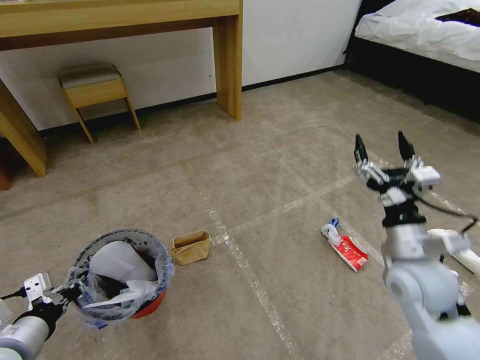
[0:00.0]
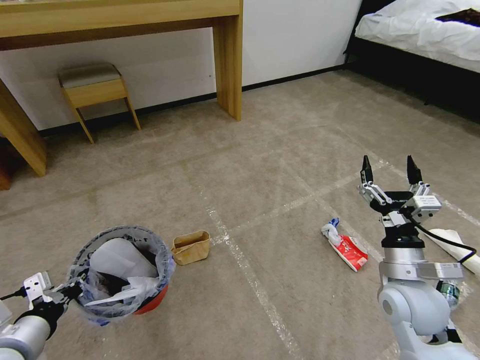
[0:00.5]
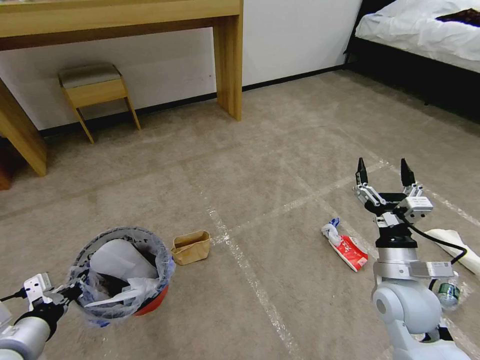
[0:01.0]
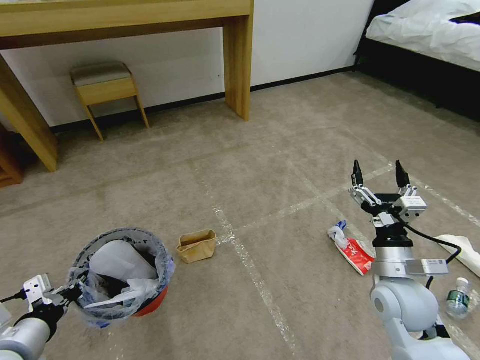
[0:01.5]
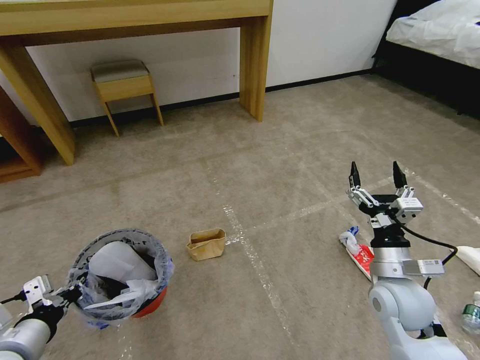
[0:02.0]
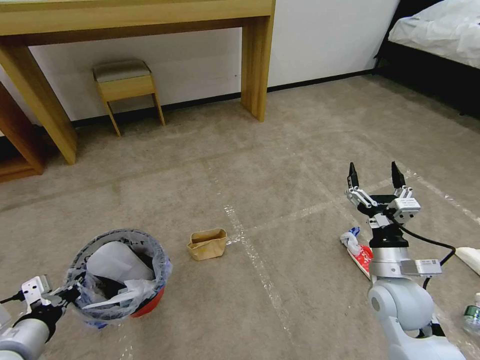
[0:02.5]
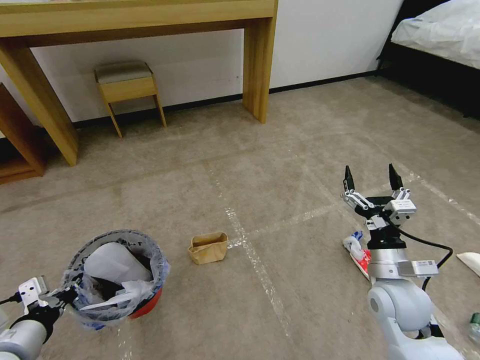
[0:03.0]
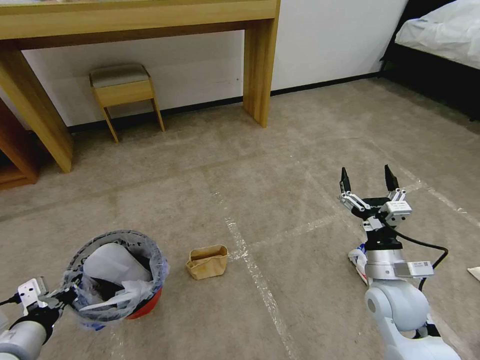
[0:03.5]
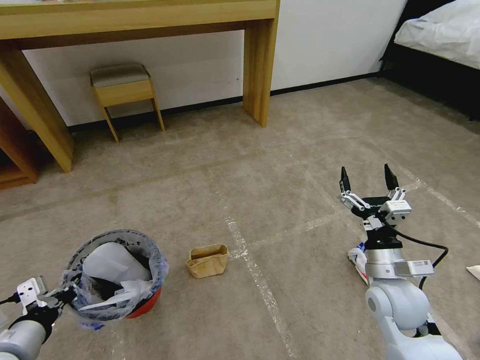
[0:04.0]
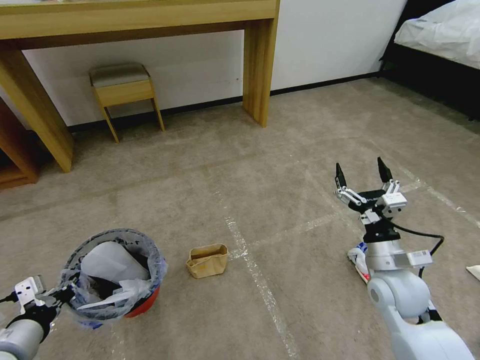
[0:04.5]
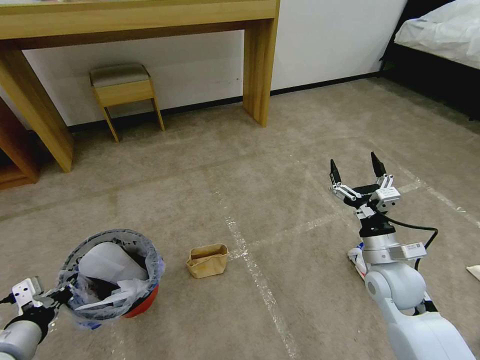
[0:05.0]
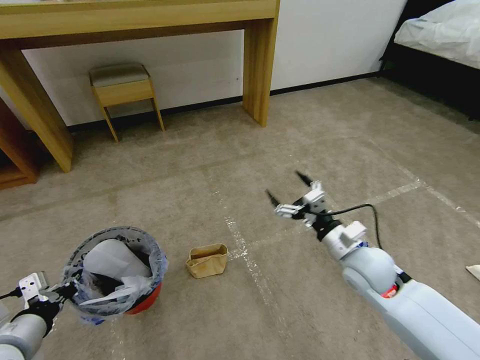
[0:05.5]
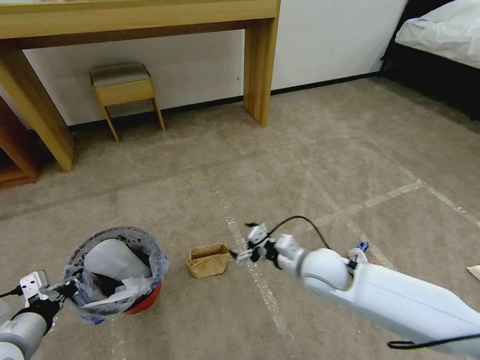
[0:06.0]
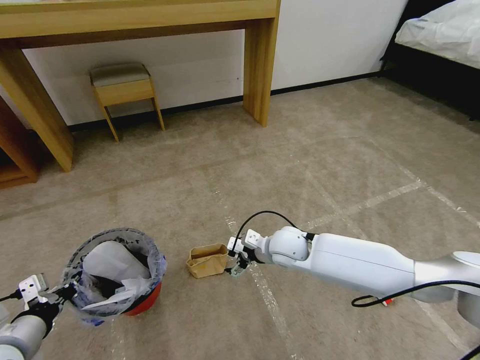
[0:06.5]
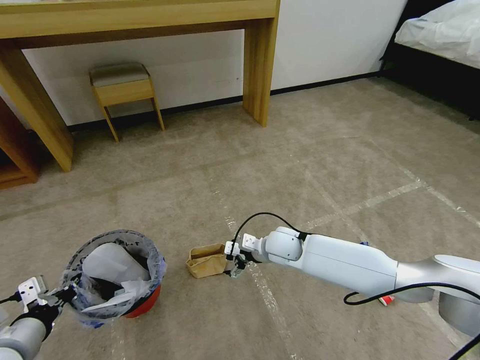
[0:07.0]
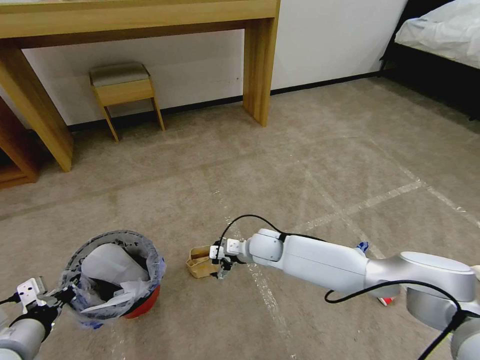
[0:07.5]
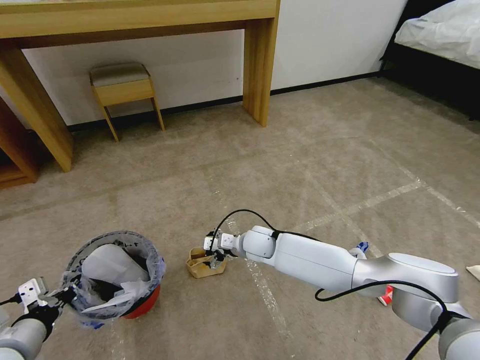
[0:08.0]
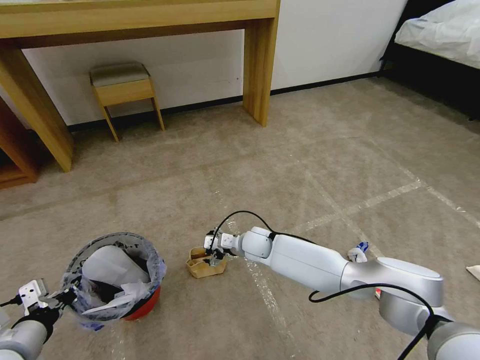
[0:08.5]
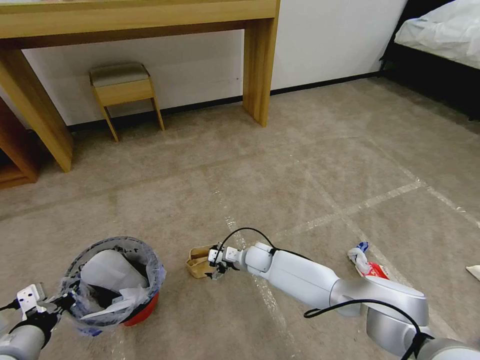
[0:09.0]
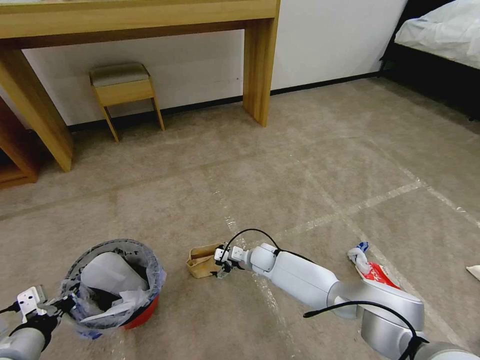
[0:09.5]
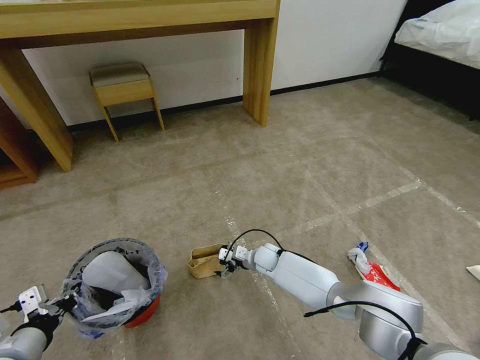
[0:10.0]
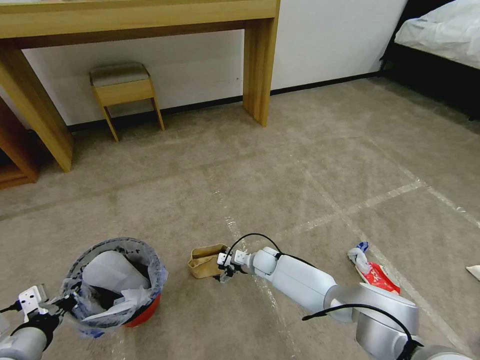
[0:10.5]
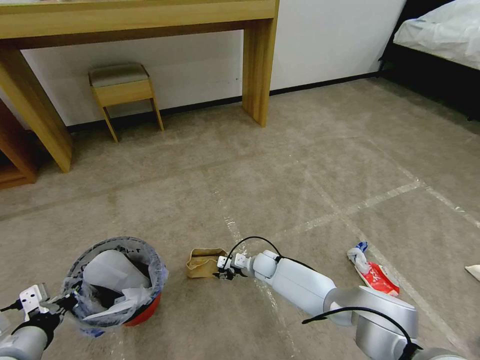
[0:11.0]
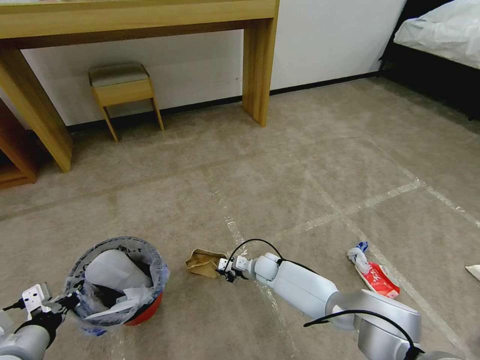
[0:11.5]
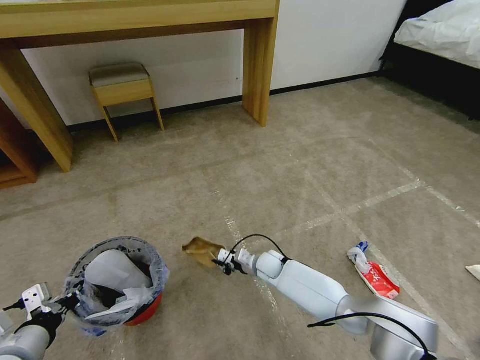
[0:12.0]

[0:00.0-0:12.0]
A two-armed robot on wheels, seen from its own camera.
Task of the whole recording: Pick up the trash bin and place the garbage on the floor into it.
0:00.0 to 0:02.0: The right gripper is displaced downward by about 5 cm.
0:02.0 to 0:04.0: Both grippers stay put.
0:04.0 to 0:06.0: The right gripper moves to the left and forward, approximately 10 cm.
0:06.0 to 0:08.0: The right gripper heads to the left, forward and downward, covering some 20 cm.
0:08.0 to 0:10.0: The right gripper travels downward by approximately 10 cm.
0:10.0 to 0:12.0: The right gripper closes its fingers.

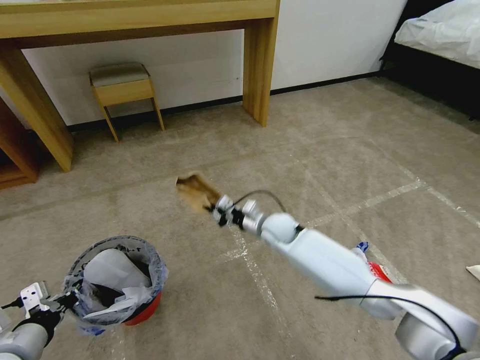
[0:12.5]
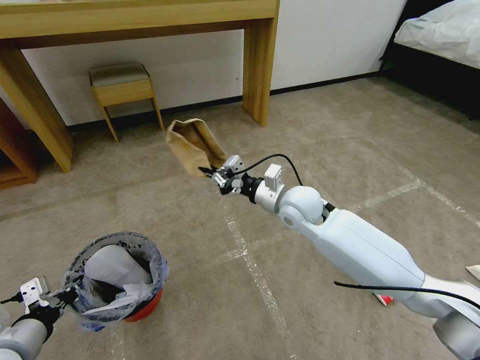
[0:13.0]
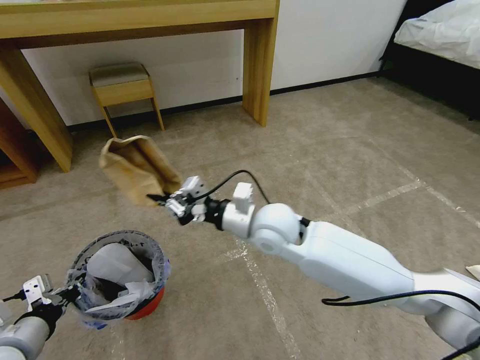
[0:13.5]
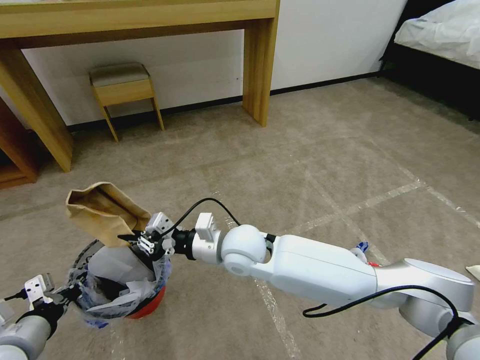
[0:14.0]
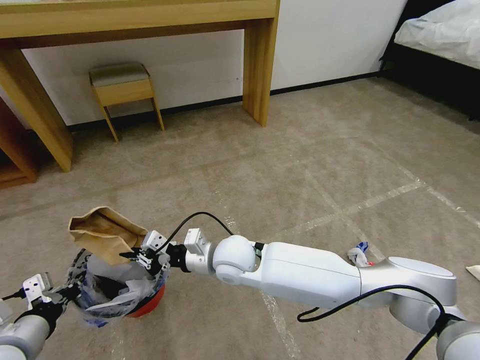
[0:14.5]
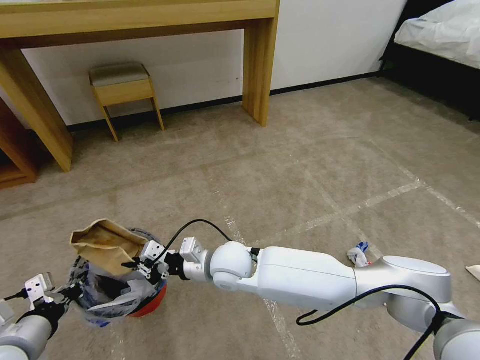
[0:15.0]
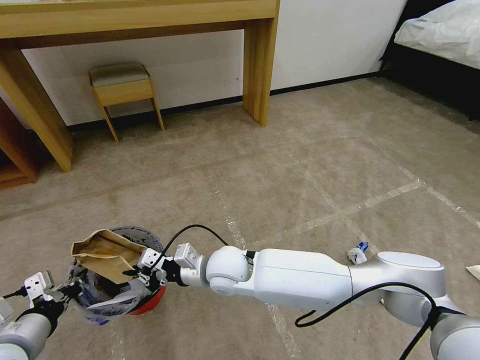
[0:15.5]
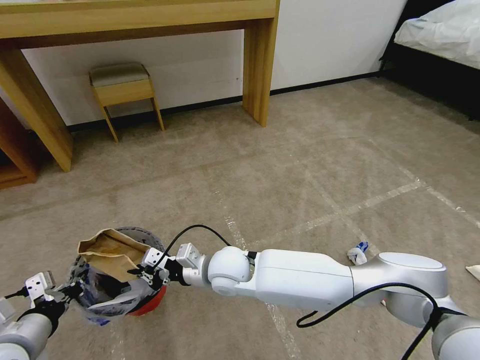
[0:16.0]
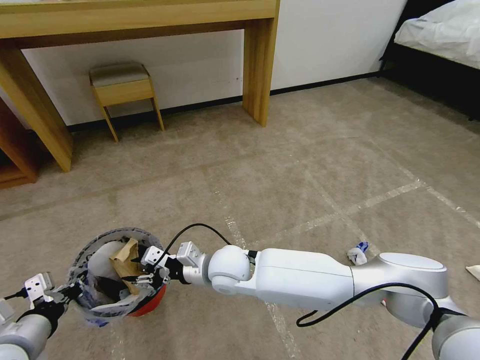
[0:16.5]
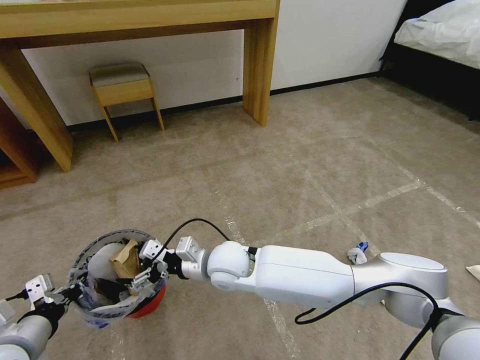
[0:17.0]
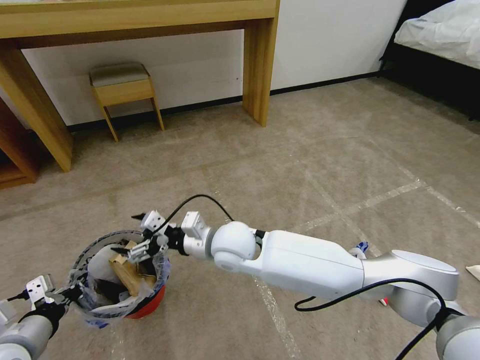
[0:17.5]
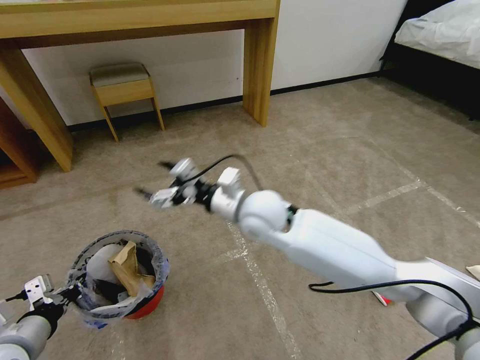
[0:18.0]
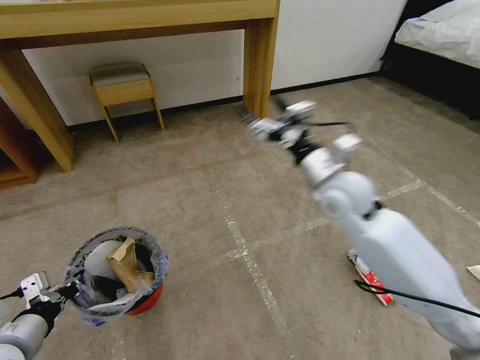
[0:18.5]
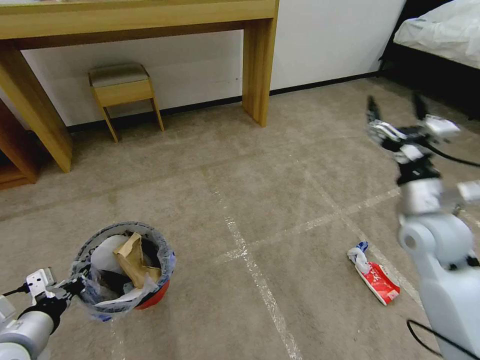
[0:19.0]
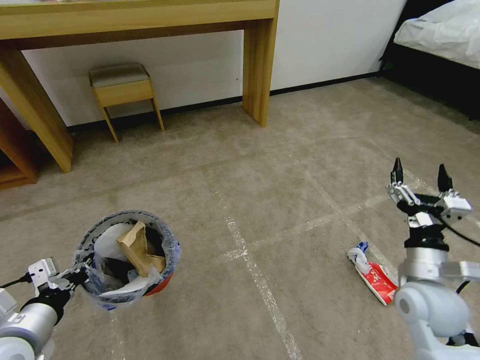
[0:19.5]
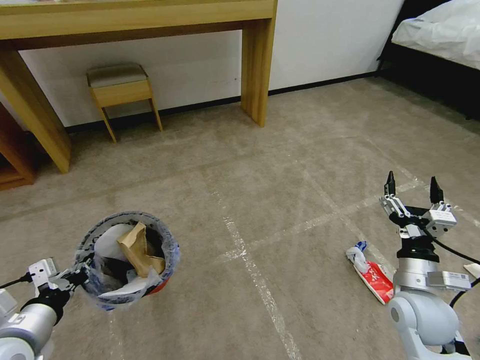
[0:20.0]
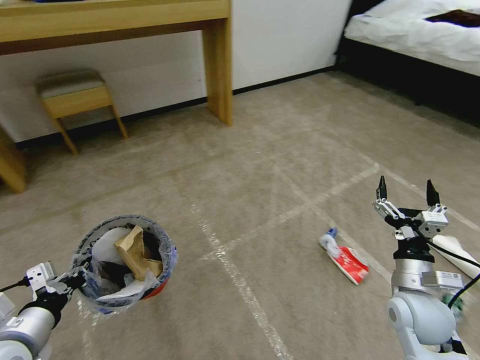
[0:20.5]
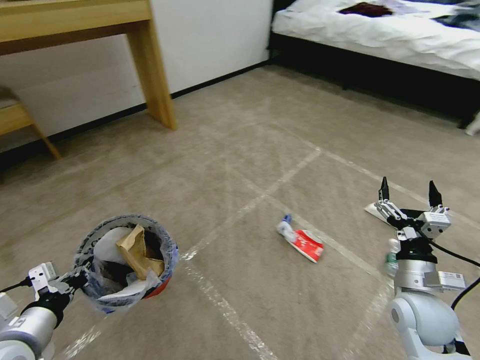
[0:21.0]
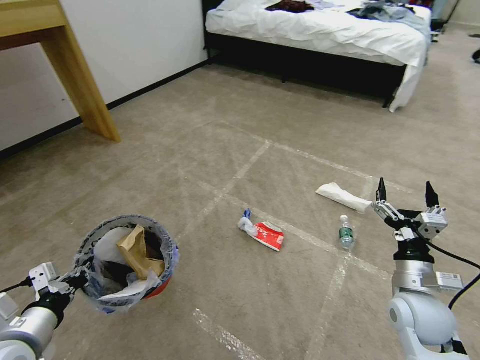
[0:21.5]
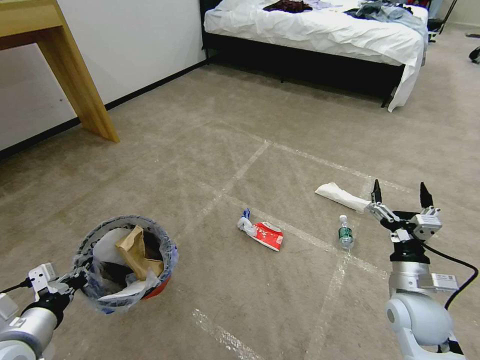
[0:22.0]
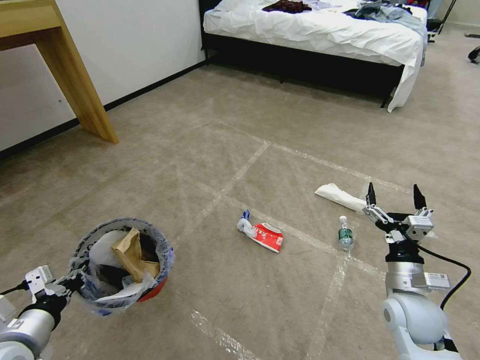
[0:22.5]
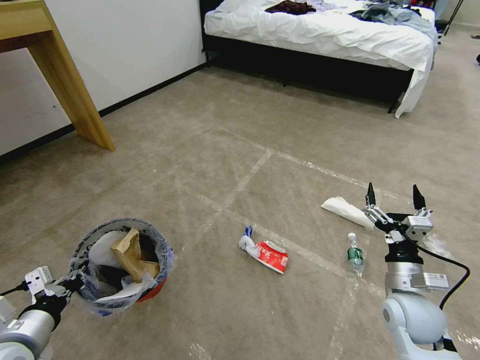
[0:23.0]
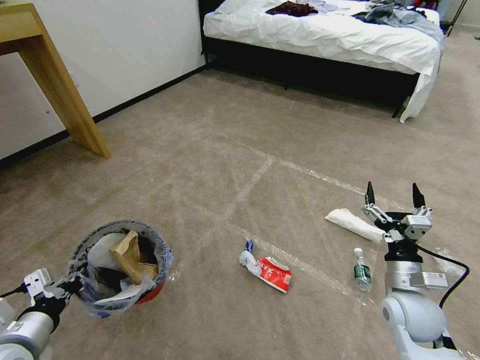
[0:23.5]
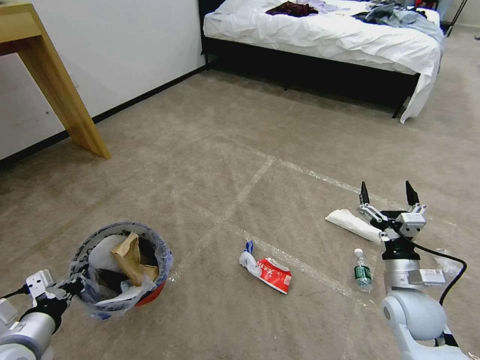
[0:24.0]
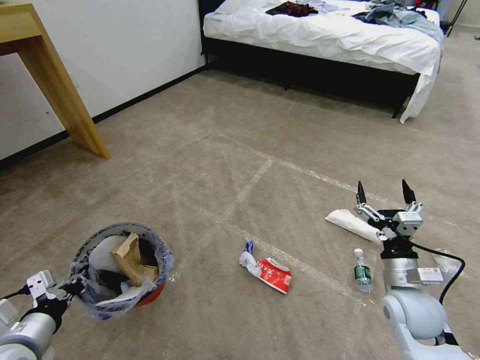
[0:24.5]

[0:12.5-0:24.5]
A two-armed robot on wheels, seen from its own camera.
Task of the whole recording: Pick up the trash bin and place the garbage on the floor into it.
0:12.5 to 0:14.5: The right gripper heads to the left and backward, covering approximately 20 cm.
0:14.5 to 0:16.5: The right gripper opens up.
0:16.5 to 0:18.5: The right gripper goes about 30 cm to the right and upward, and opens up.
0:18.5 to 0:20.5: The right gripper is displaced backward, downward and to the right by some 25 cm.

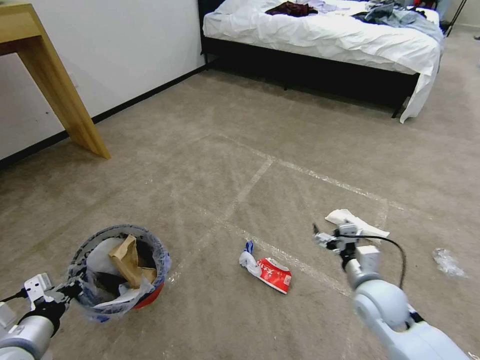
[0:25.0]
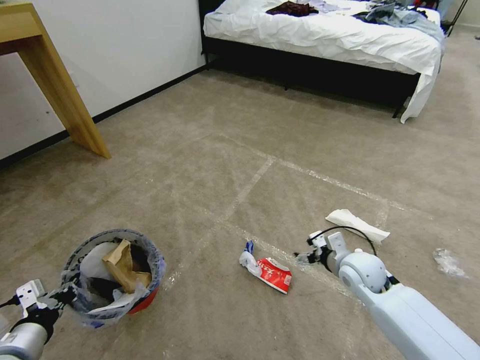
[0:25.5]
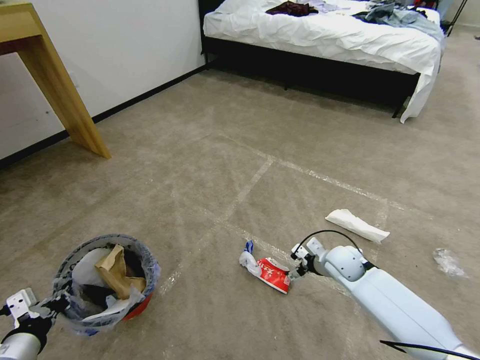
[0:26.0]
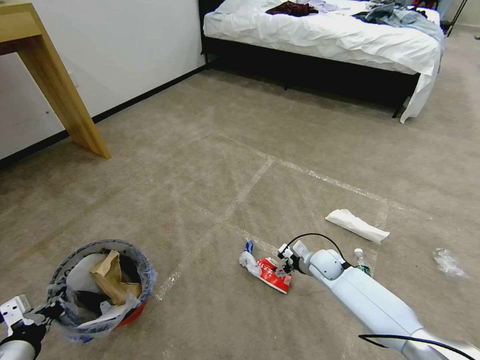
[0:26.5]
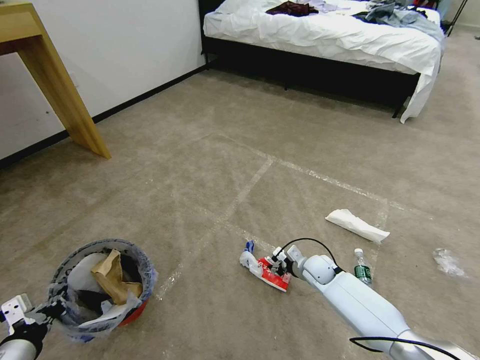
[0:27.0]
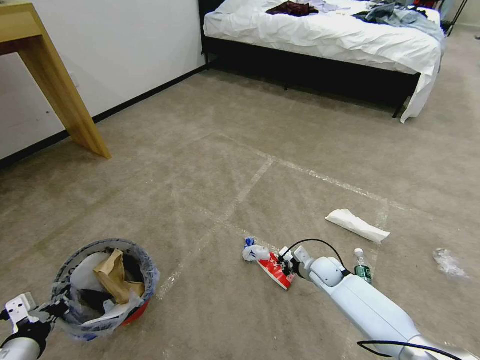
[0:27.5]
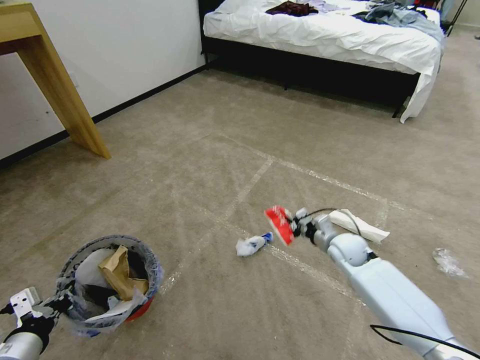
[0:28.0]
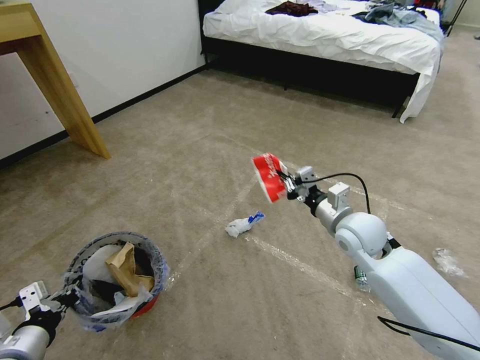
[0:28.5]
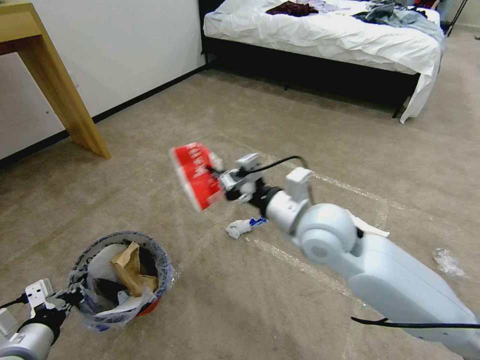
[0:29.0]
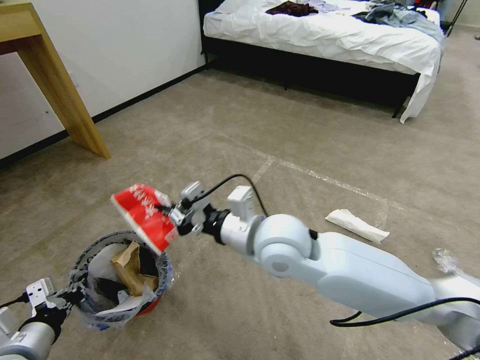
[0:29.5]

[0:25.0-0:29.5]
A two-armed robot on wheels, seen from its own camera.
Task of the whole recording: Pick up the trash bin and place the garbage on the floor into it.
0:25.0 to 0:27.0: The right gripper heads downward and forward, covering approximately 20 cm, and closes.
0:27.0 to 0:29.5: The right gripper shifts some 35 cm upward and to the left, and closes its fingers.
